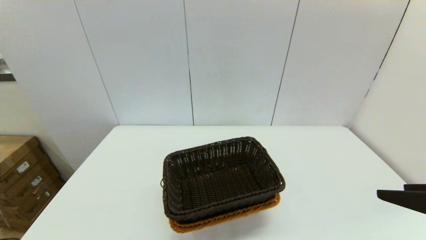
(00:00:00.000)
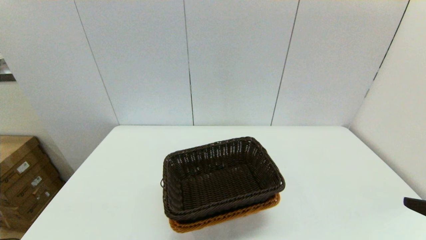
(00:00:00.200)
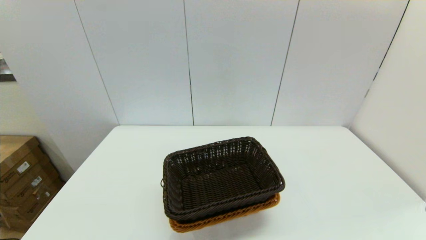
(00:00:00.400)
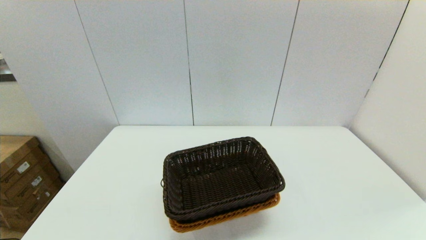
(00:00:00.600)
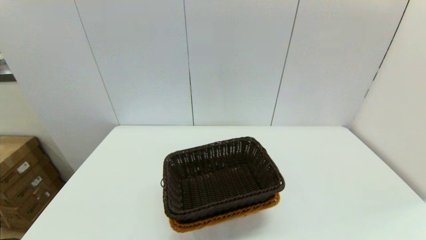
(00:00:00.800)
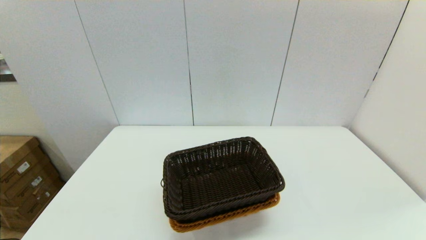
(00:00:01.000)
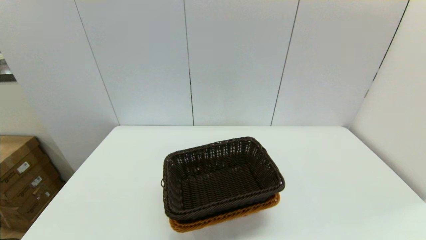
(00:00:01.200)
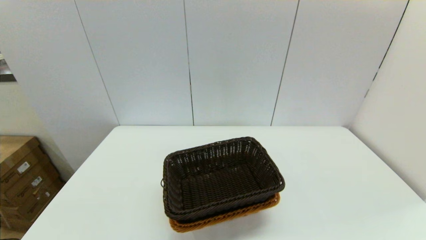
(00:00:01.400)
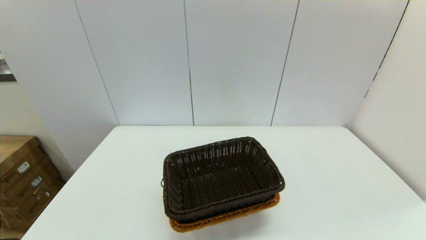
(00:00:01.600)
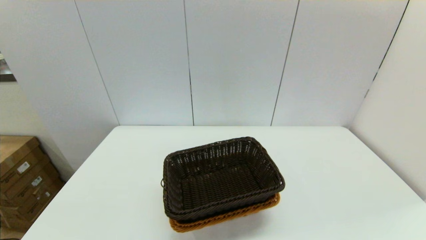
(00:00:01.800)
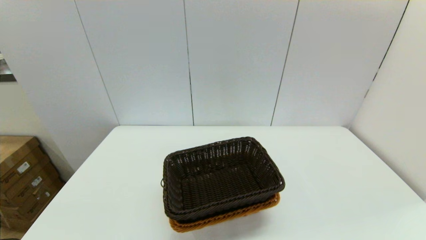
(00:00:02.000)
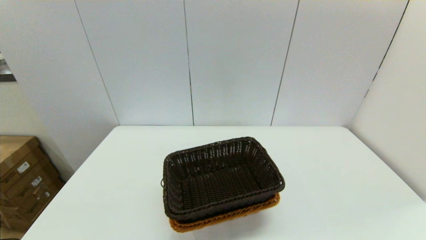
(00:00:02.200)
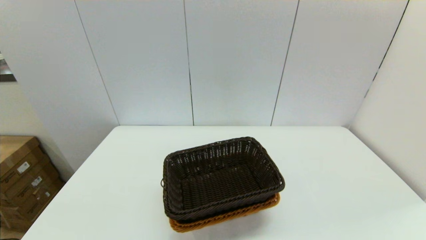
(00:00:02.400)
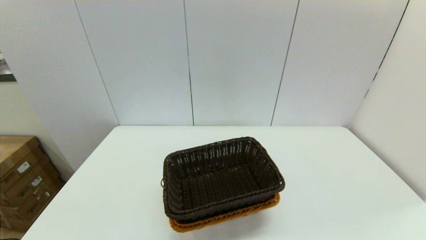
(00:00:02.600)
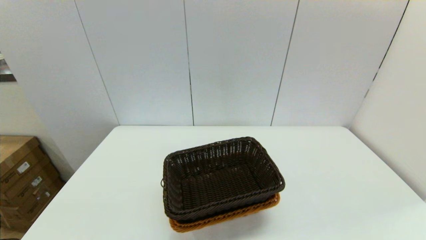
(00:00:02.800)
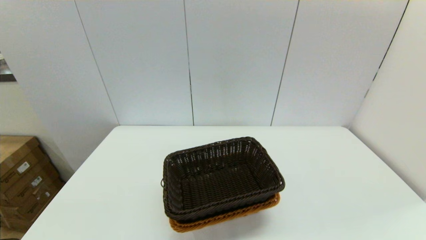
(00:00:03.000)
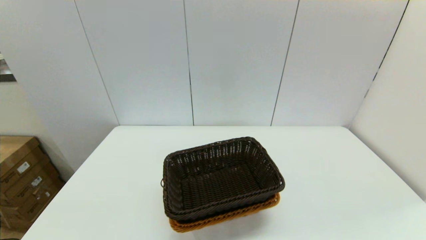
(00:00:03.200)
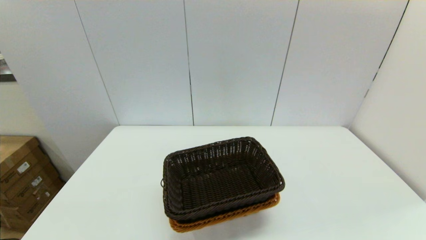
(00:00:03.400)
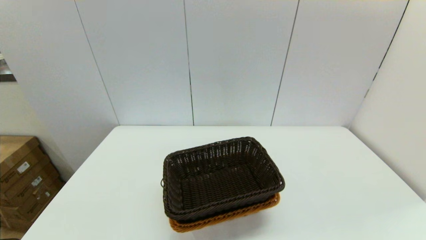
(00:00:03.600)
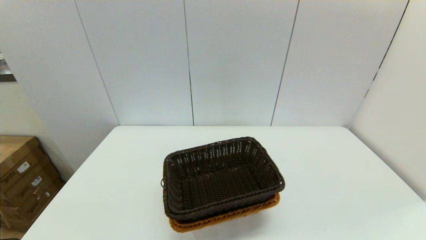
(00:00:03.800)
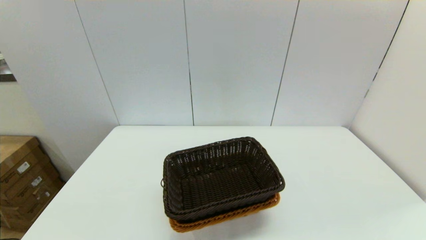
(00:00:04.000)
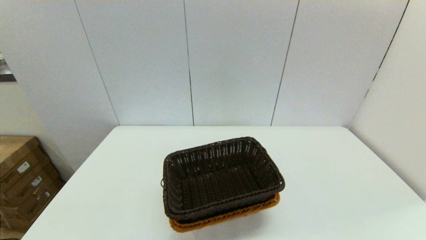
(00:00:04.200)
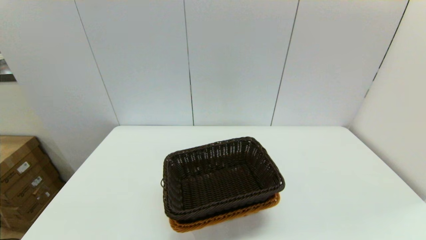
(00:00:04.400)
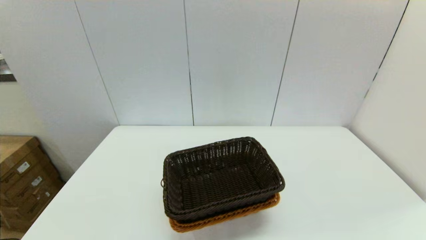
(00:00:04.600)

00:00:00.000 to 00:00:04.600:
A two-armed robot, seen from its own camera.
Task of the whole recording: stack a basket on top of another basket.
00:00:00.000 to 00:00:01.600: The right gripper heads backward and downward, covering about 15 cm.
00:00:03.000 to 00:00:04.600: Both grippers stay about where they are.
